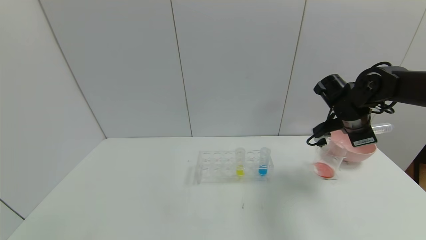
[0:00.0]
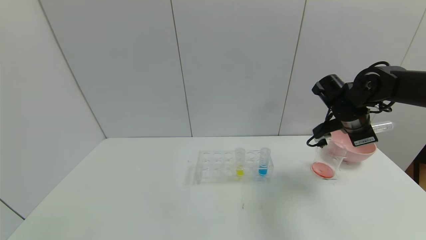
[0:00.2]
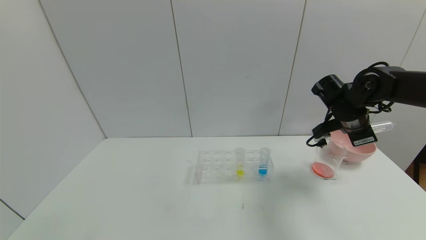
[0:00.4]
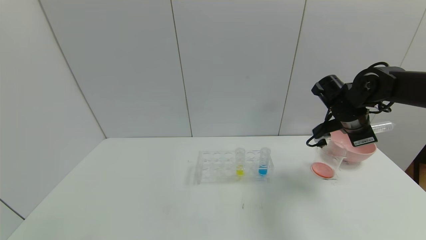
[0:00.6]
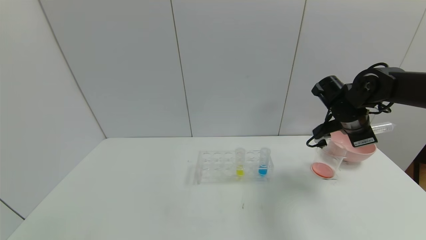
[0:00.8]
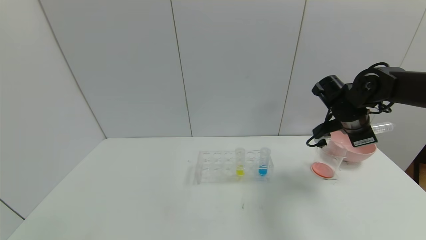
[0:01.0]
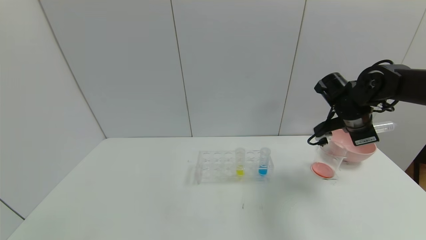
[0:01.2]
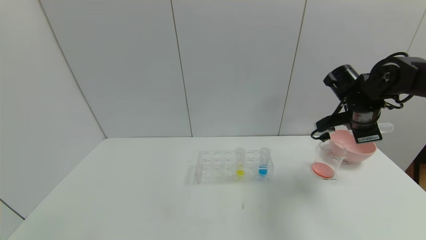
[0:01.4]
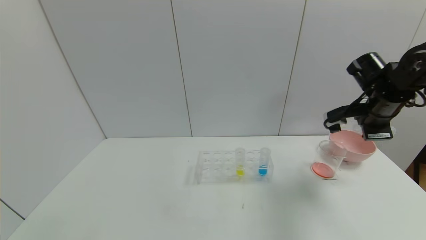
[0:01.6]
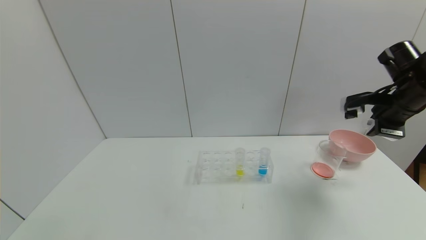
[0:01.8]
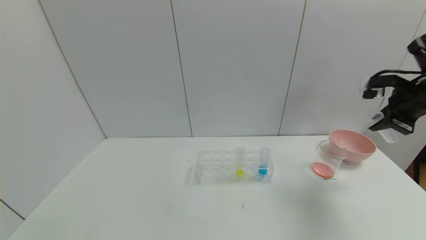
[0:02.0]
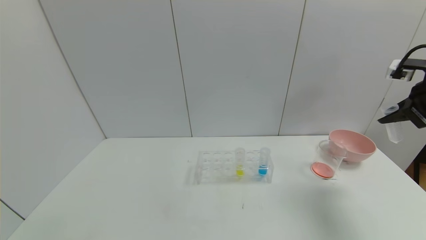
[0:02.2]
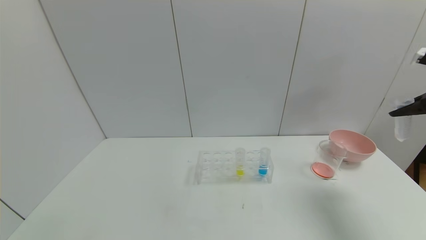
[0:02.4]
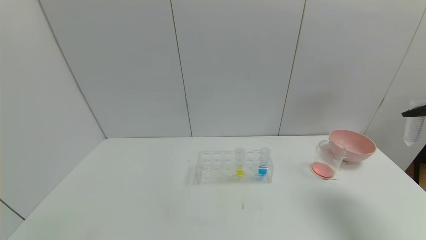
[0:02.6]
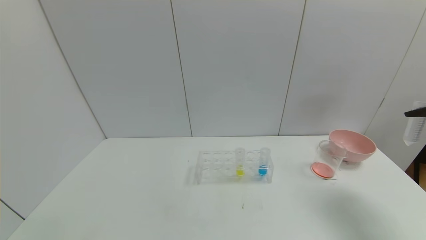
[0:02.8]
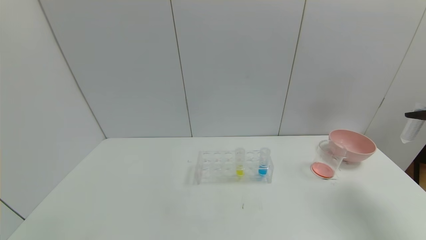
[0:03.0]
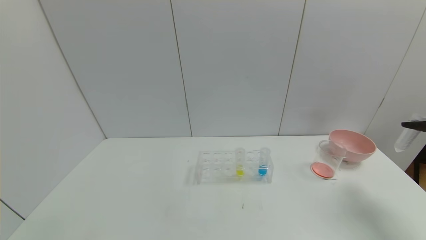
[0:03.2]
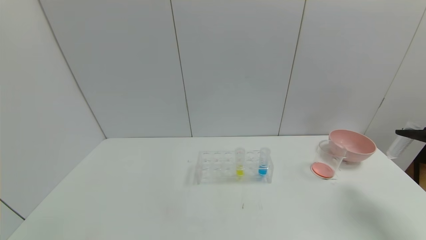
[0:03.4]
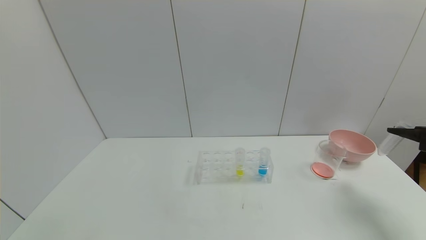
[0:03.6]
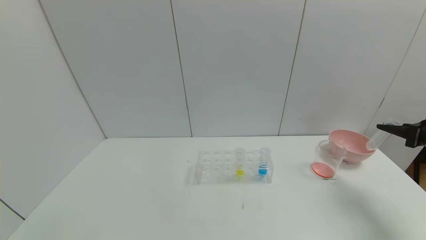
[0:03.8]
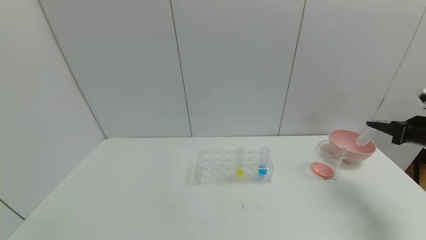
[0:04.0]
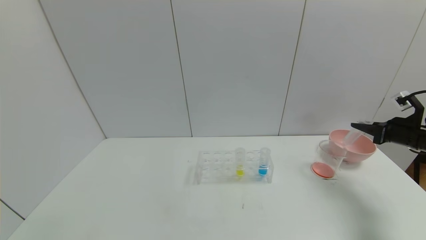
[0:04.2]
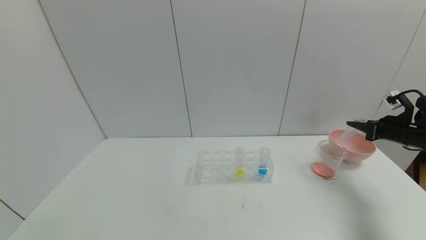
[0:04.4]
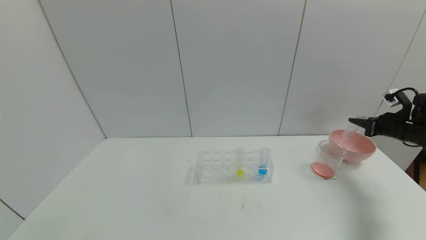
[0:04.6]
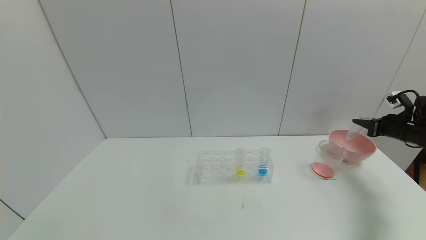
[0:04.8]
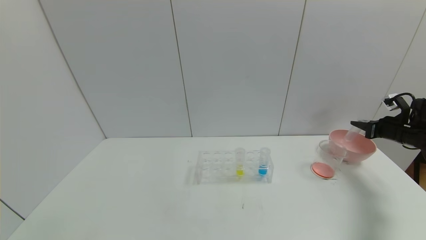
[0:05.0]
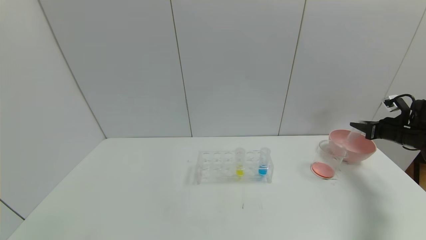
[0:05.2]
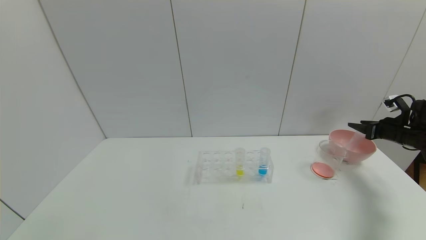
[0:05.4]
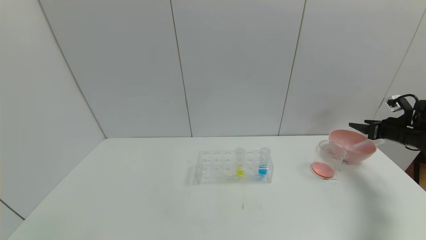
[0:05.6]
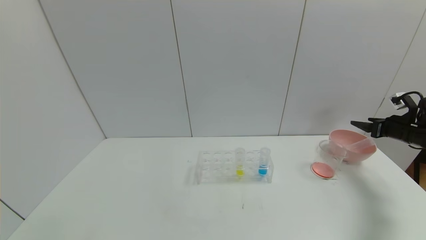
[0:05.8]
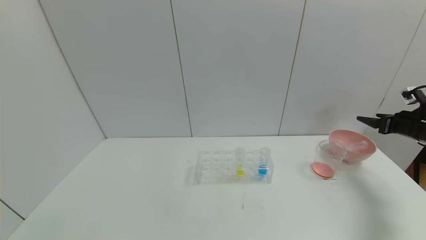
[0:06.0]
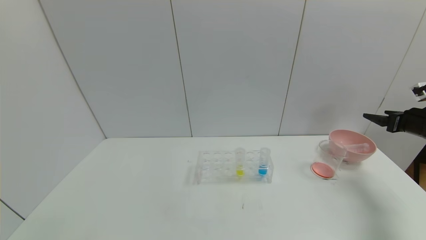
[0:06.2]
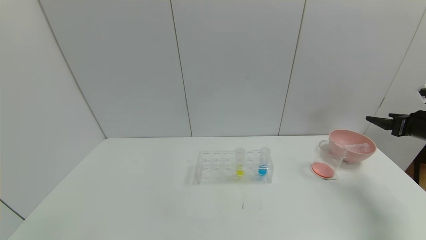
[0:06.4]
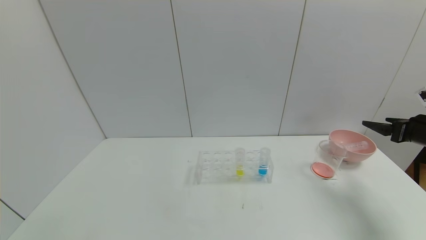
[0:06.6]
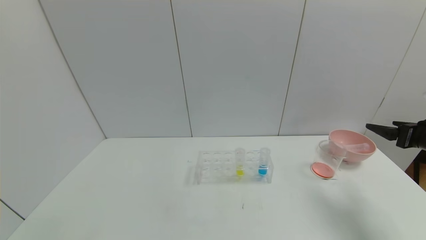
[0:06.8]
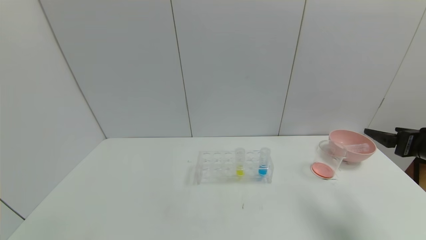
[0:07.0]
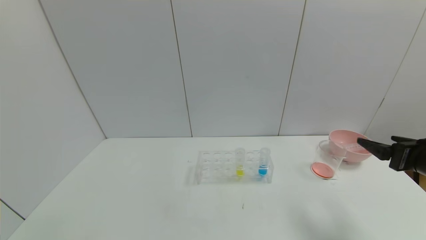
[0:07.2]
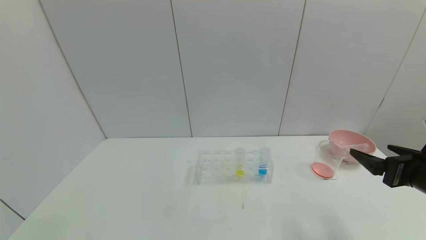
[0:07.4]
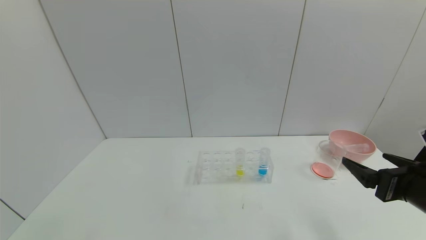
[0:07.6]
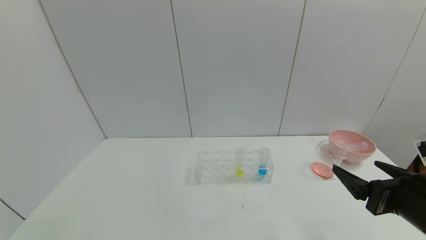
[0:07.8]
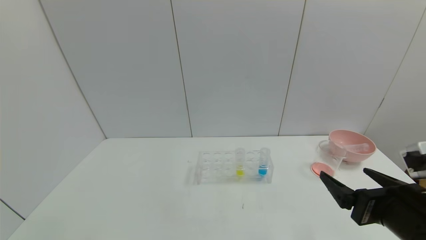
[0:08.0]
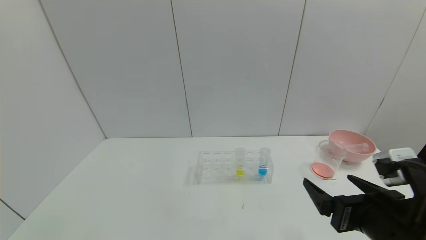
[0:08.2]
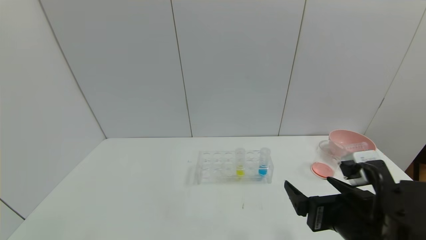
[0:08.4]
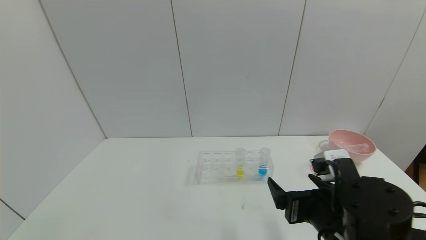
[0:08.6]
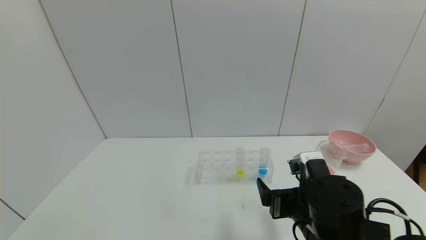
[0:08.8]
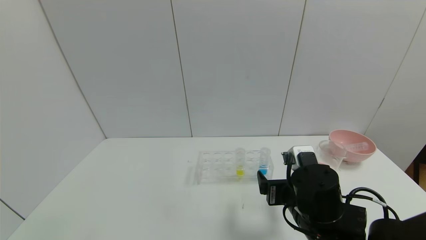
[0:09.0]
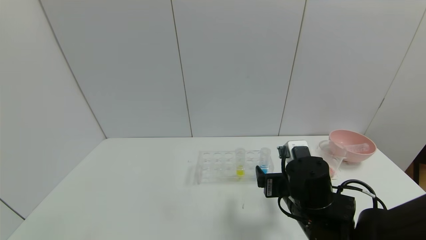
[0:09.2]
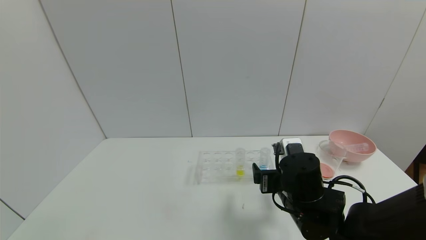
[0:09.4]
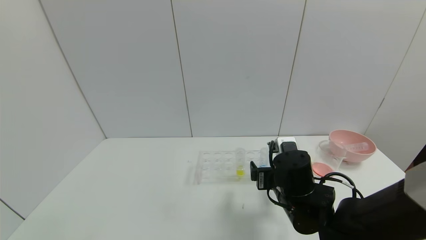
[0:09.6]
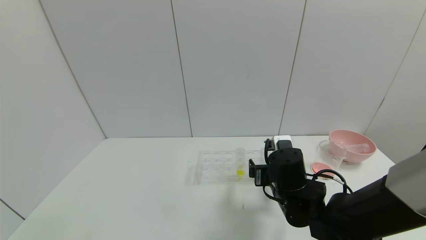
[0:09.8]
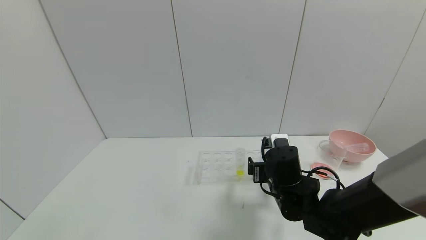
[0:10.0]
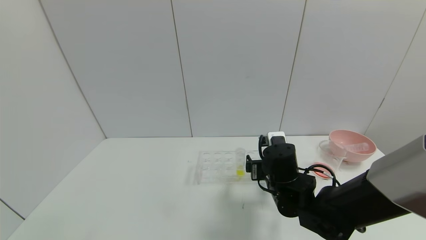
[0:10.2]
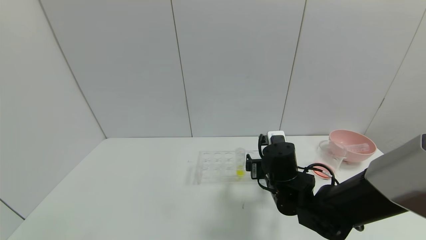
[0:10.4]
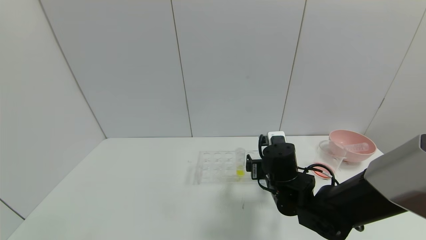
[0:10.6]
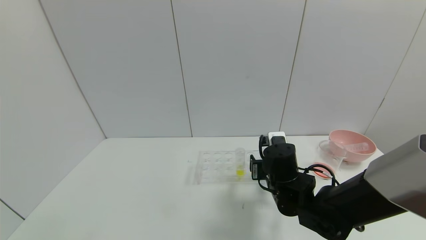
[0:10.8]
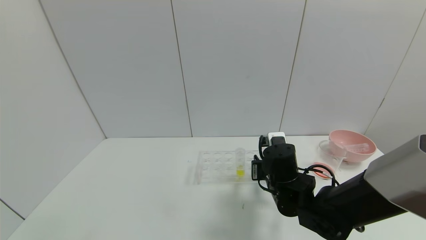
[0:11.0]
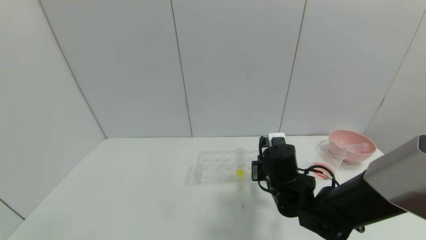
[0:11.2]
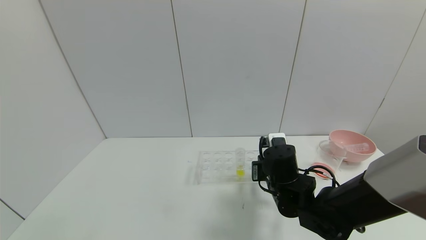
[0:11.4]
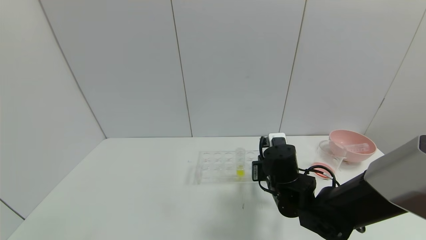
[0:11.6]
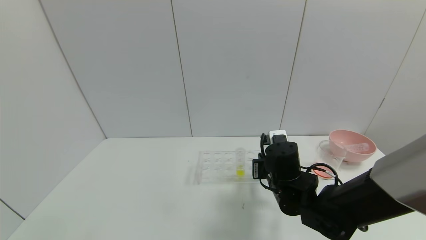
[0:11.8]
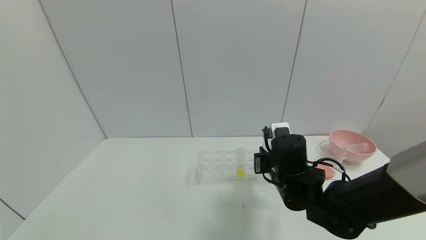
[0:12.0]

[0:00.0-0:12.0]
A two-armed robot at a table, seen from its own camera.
Task of the whole recording: pick up the test tube with red pigment and the test tube with blue pigment by grippers and pour them into the container.
Step, 0:00.4 to 0:05.6: Place the test tube into the bowl with the right gripper.
Step, 0:05.8 to 0:11.6: Grasp the blue reagent with the right gripper.
0:00.0 to 0:01.6: The right gripper shifts by roughly 5 cm.
0:01.6 to 0:03.0: The right gripper heads to the right and backward, covering about 20 cm.
0:03.0 to 0:04.4: The right gripper heads downward and forward, covering roughly 15 cm.
0:04.4 to 0:06.0: The right gripper opens up.
0:06.0 to 0:07.6: The right gripper goes about 30 cm backward and to the left.
0:07.6 to 0:09.0: The right gripper heads to the left, downward and forward, covering roughly 20 cm.
0:09.0 to 0:10.4: The right gripper heads forward, covering roughly 10 cm.
0:10.4 to 0:12.0: The right gripper closes up.

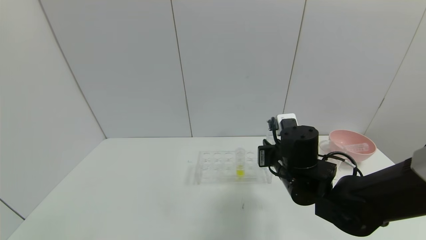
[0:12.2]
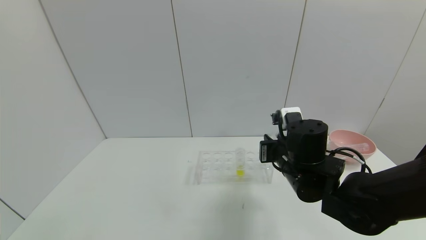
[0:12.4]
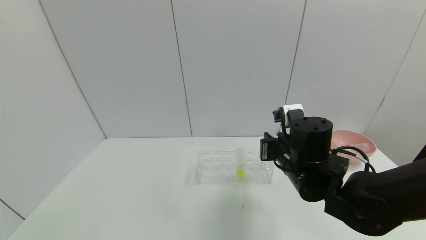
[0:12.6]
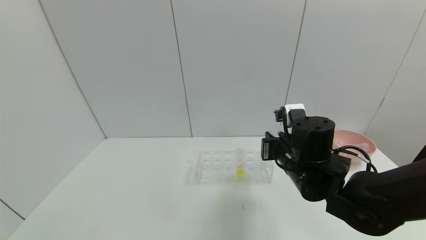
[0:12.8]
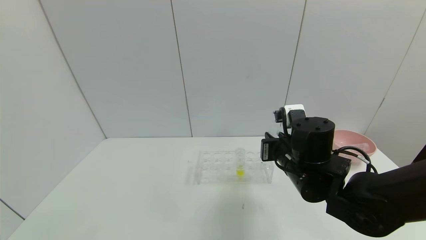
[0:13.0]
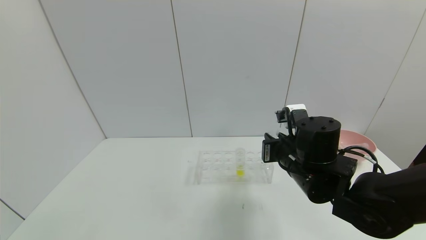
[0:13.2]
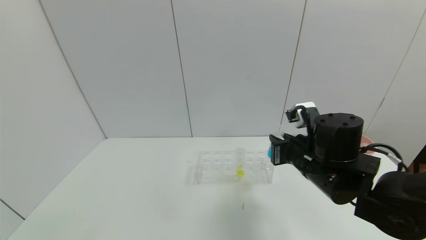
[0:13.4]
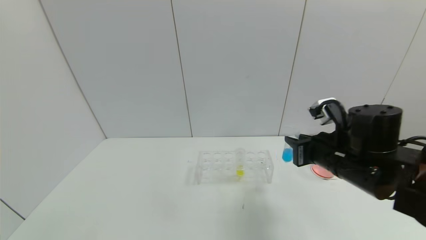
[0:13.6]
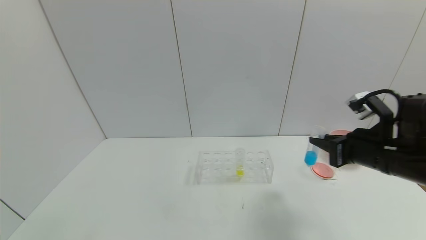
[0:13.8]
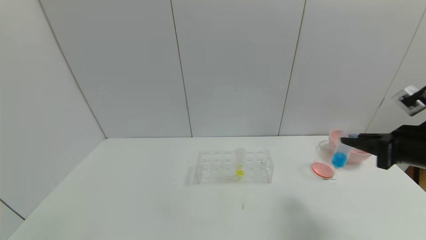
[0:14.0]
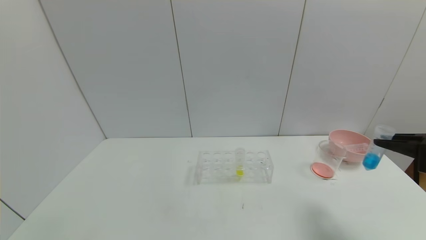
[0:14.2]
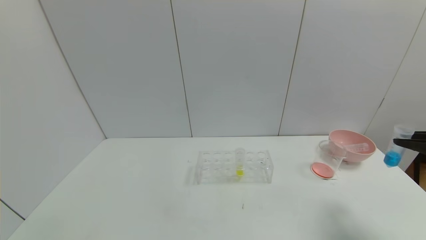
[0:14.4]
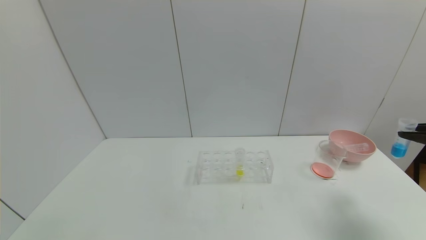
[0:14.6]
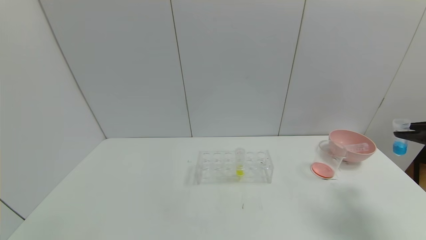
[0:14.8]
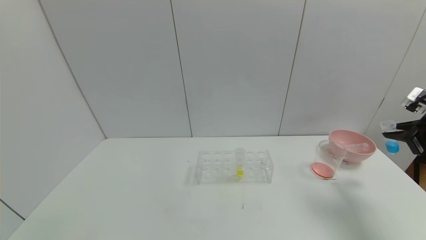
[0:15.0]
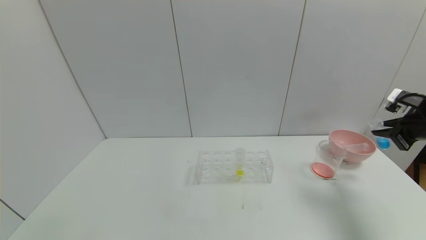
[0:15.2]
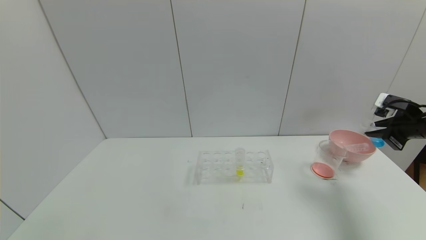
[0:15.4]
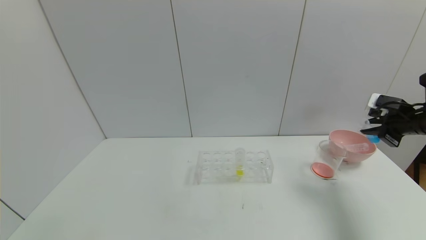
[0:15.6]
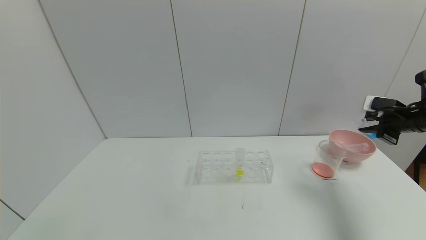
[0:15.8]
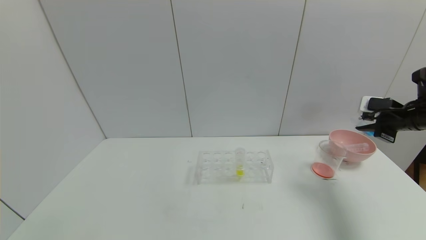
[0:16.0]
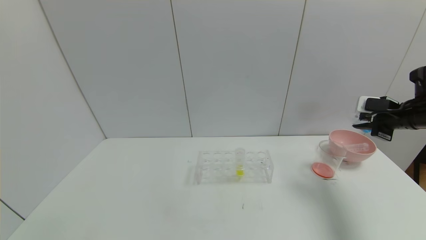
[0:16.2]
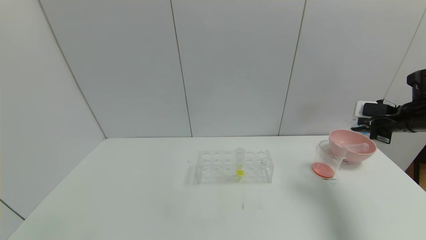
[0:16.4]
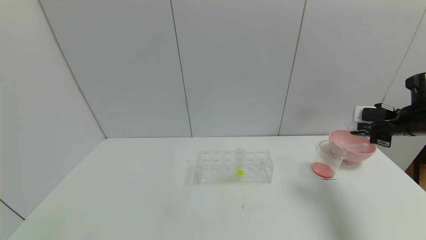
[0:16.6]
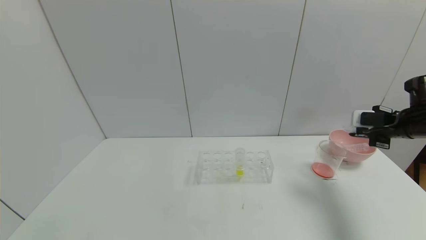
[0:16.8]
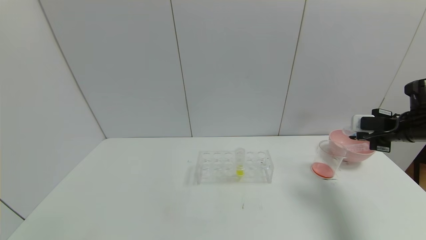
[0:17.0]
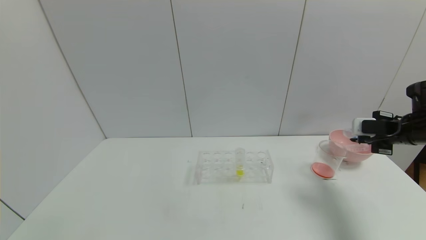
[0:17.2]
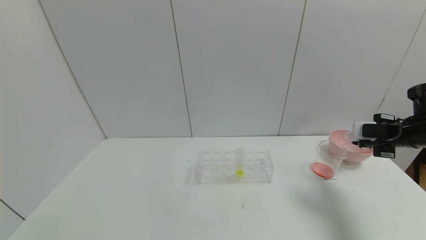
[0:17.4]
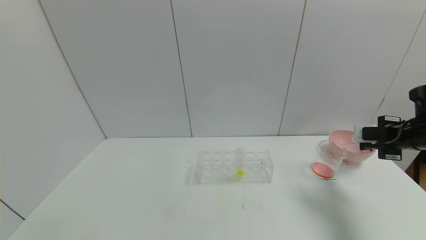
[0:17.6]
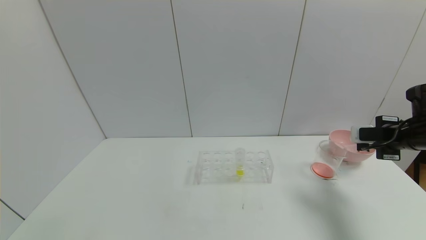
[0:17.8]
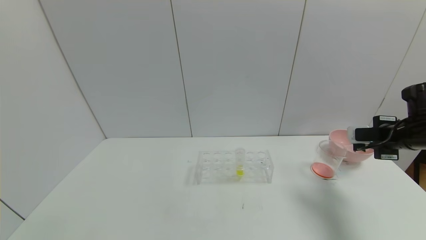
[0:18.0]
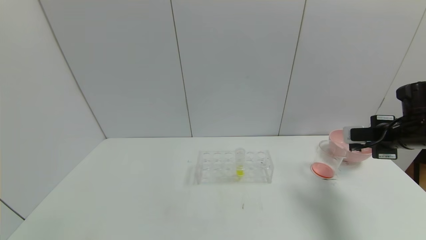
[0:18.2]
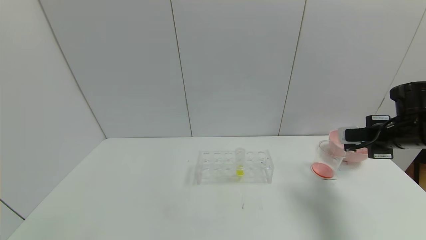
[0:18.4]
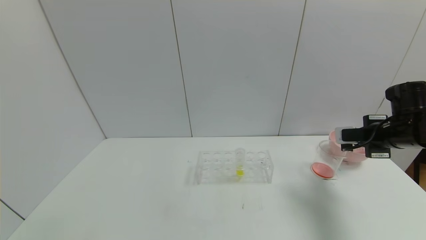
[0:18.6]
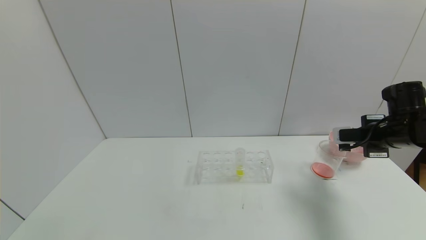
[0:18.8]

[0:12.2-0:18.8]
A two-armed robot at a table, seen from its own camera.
Task of the whole recording: pick up the test tube with red pigment and the test tube with blue pigment by grippers and pour them into the container.
0:12.2 to 0:13.8: The right gripper moves to the right and upward, about 15 cm.
0:13.8 to 0:15.4: The right gripper shifts about 20 cm to the right and forward.
0:17.2 to 0:18.8: The grippers make only small movements.
